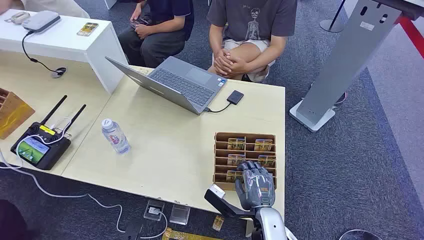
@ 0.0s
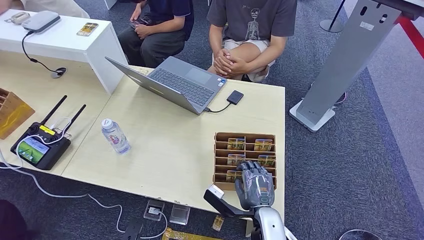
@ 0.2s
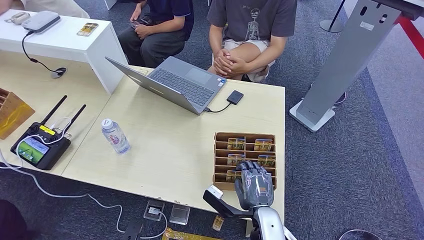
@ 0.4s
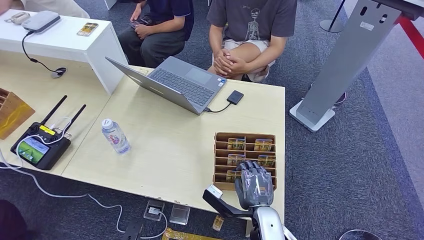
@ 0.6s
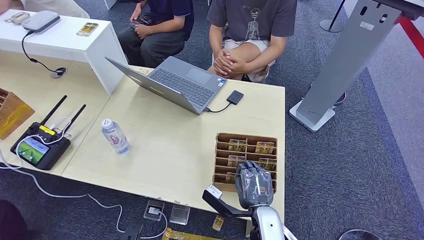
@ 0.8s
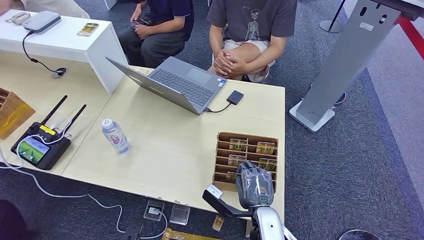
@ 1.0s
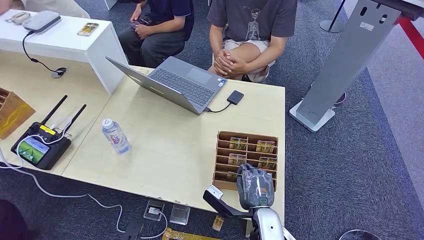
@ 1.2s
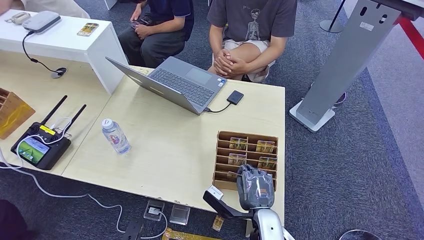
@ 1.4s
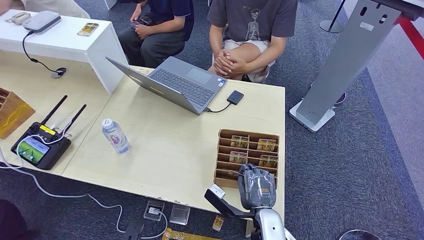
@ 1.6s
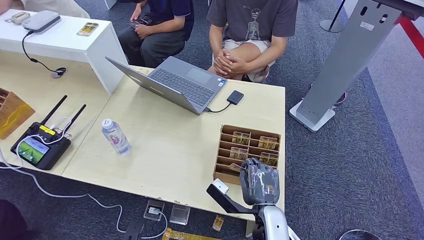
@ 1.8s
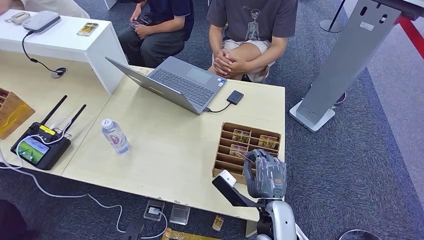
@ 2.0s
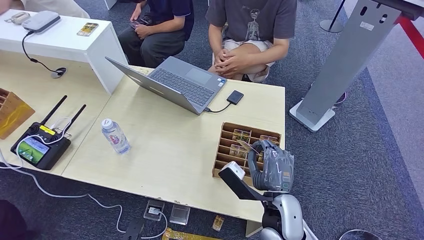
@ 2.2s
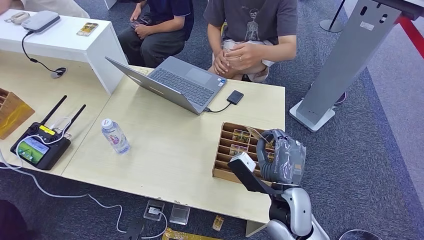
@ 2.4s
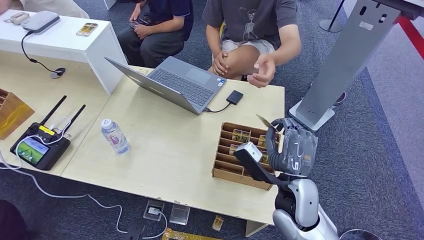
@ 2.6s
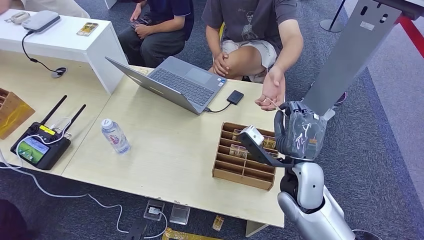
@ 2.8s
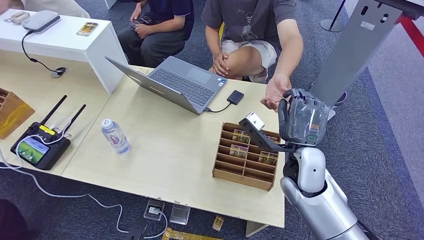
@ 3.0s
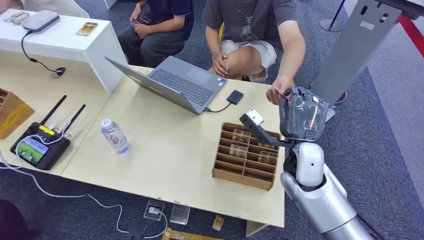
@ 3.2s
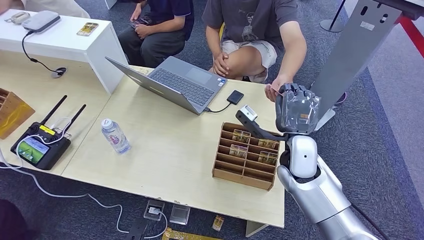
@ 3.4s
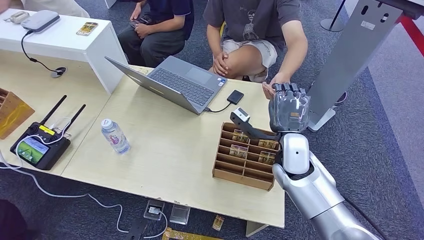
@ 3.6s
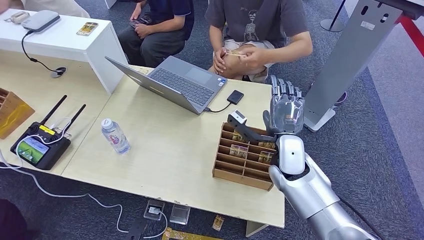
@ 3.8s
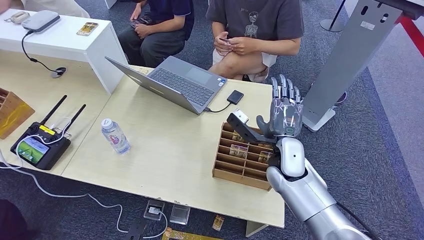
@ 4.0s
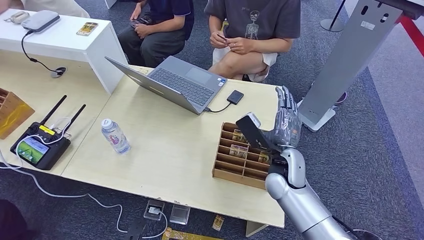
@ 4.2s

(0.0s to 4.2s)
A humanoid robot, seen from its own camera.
Step, 0.0s - 2.2s: Pick up the room card from the card holder.
Step, 2.4s - 4.2s: Hand the room card to the target.
1.4s - 2.8s: The right hand moves upward and forward, roughly 15 cm.
2.8s - 4.2s: The right hand ends up about 5 cm from where it was.

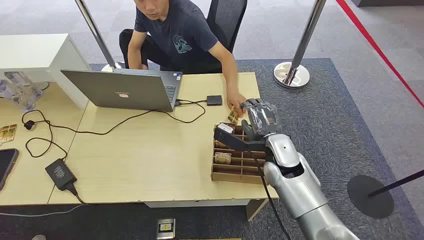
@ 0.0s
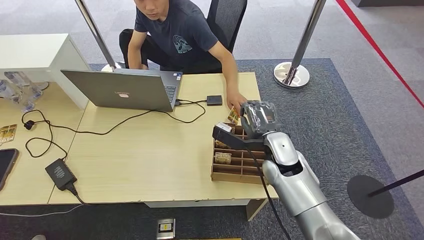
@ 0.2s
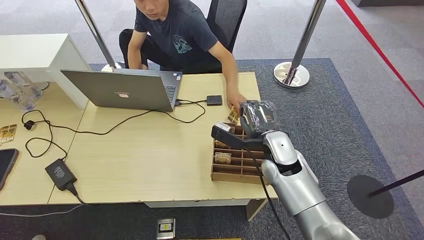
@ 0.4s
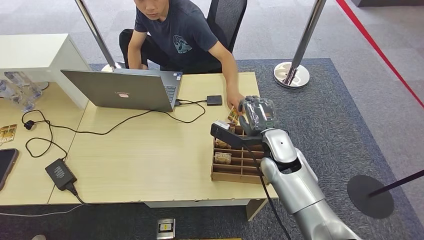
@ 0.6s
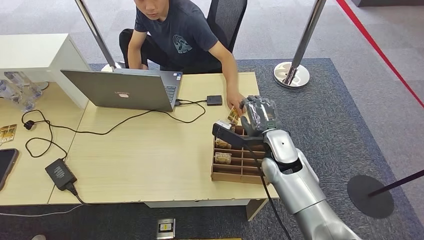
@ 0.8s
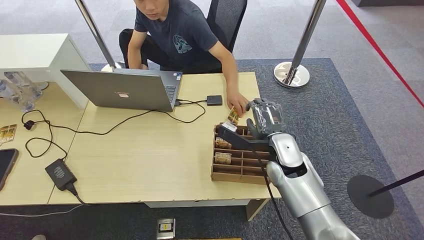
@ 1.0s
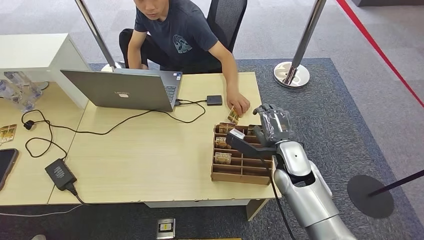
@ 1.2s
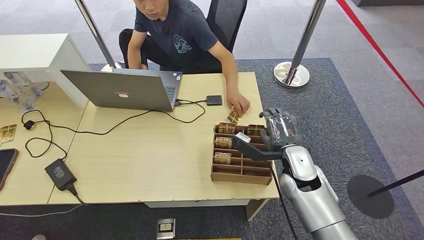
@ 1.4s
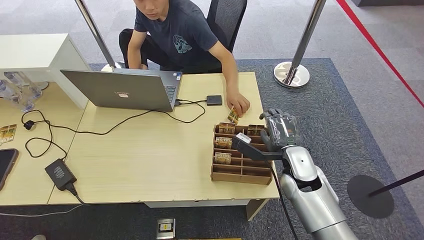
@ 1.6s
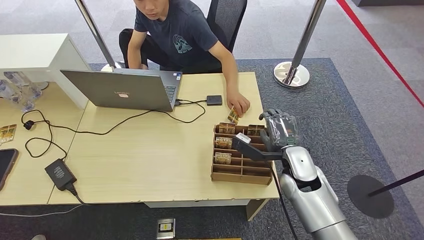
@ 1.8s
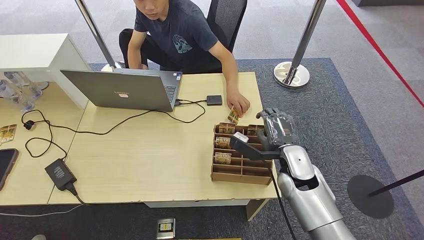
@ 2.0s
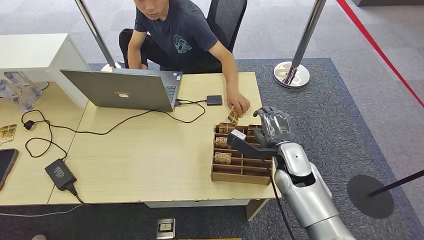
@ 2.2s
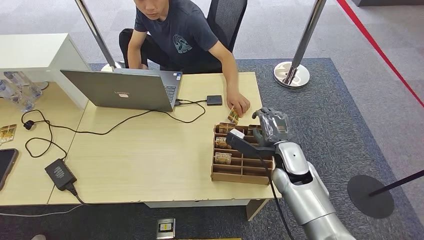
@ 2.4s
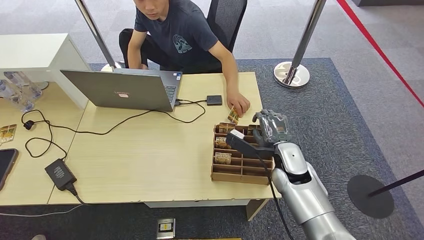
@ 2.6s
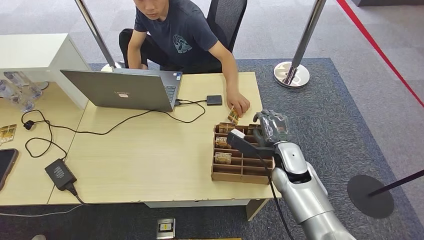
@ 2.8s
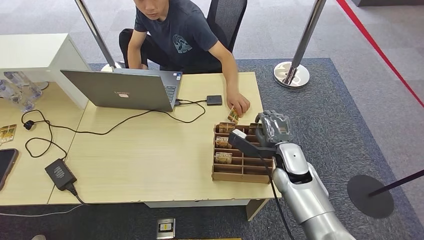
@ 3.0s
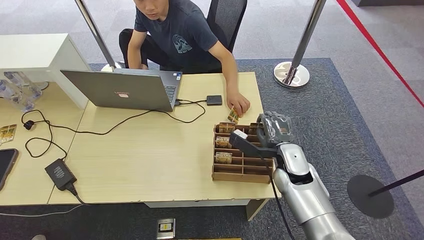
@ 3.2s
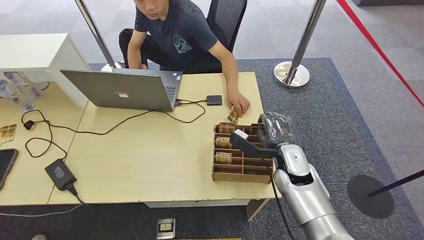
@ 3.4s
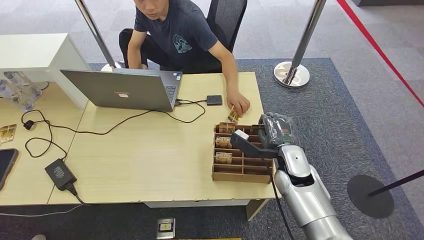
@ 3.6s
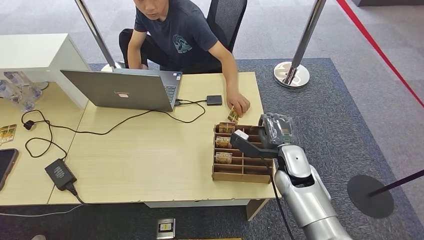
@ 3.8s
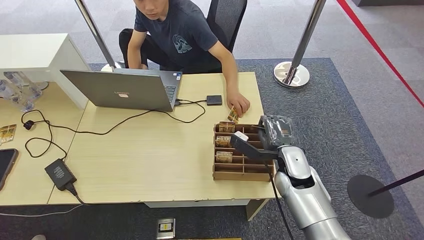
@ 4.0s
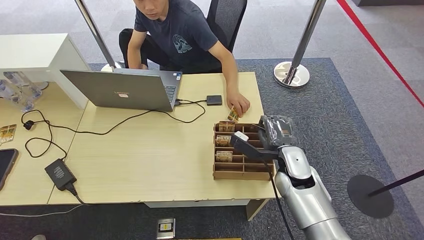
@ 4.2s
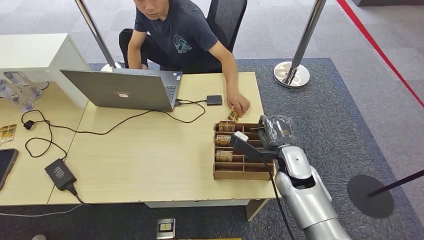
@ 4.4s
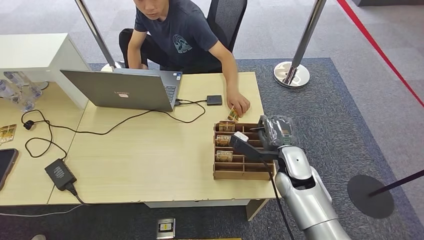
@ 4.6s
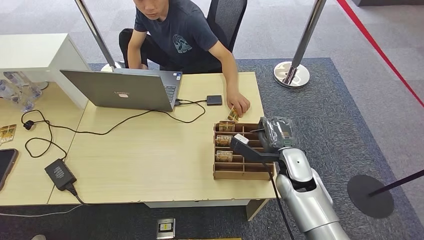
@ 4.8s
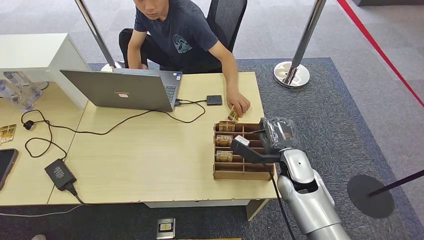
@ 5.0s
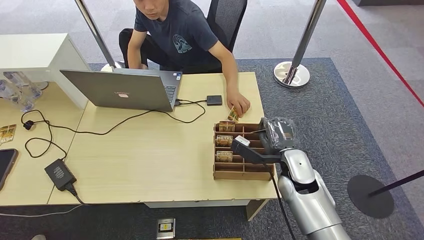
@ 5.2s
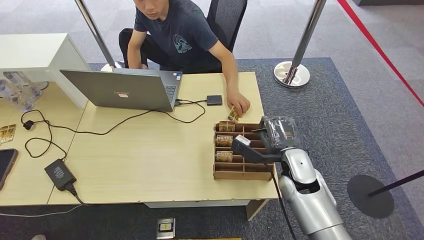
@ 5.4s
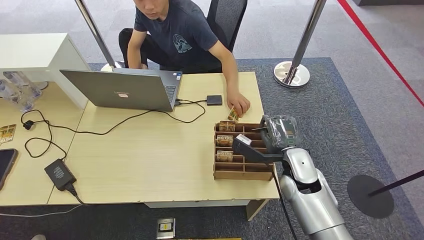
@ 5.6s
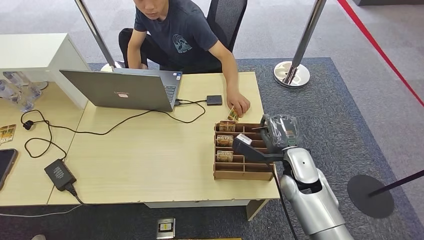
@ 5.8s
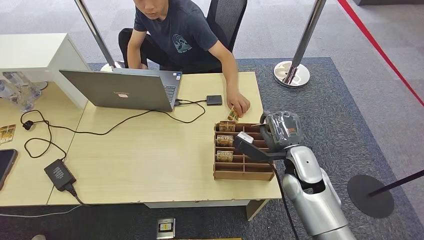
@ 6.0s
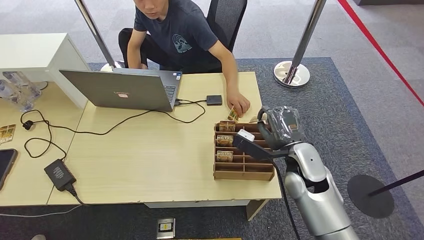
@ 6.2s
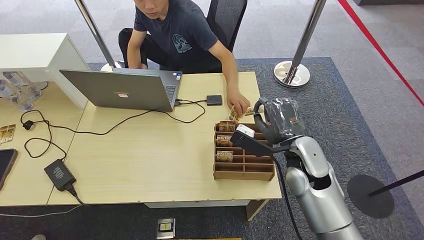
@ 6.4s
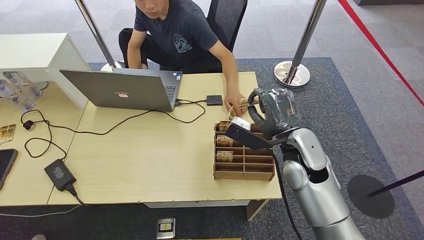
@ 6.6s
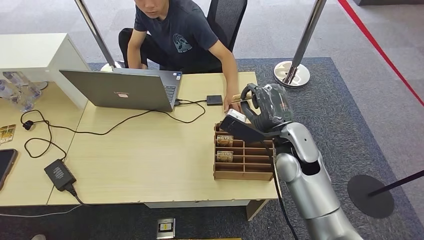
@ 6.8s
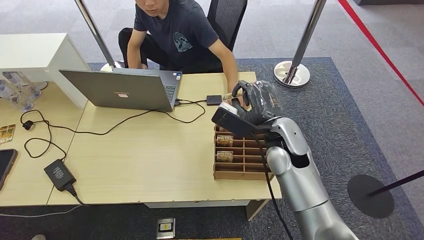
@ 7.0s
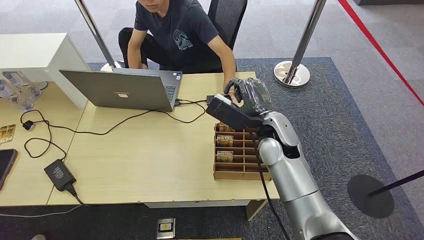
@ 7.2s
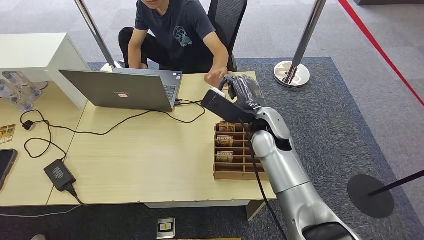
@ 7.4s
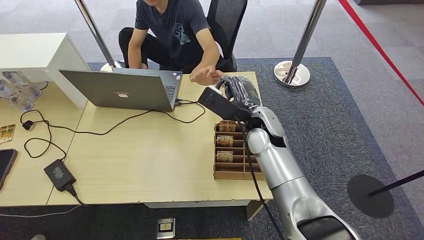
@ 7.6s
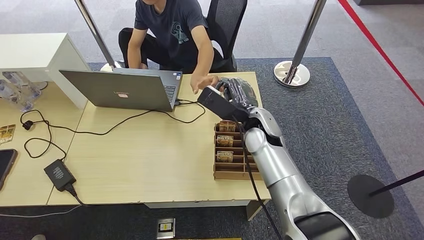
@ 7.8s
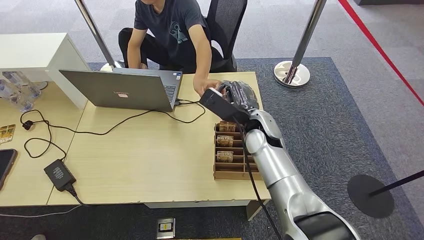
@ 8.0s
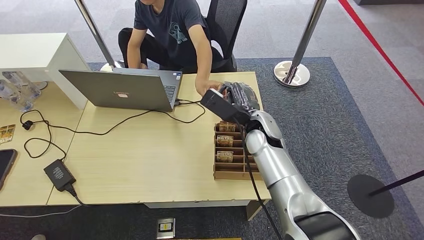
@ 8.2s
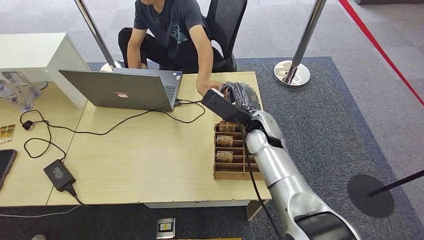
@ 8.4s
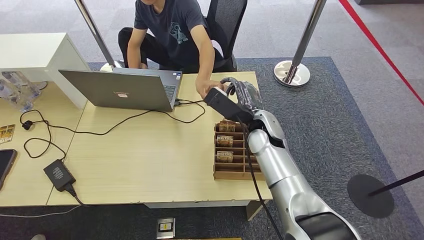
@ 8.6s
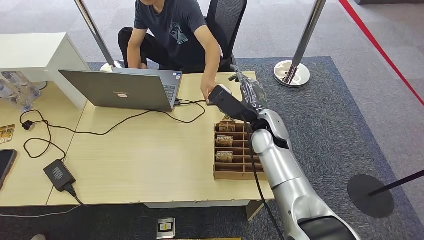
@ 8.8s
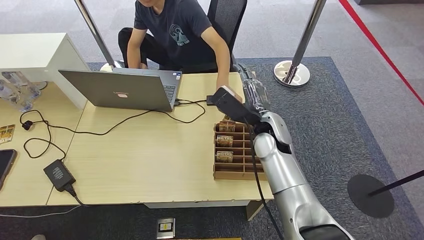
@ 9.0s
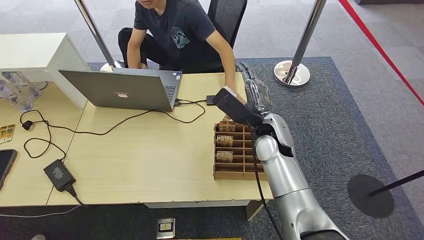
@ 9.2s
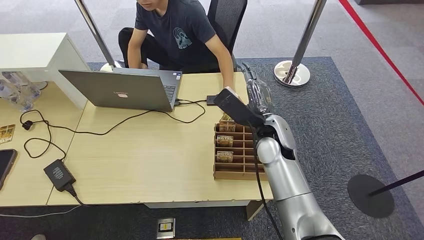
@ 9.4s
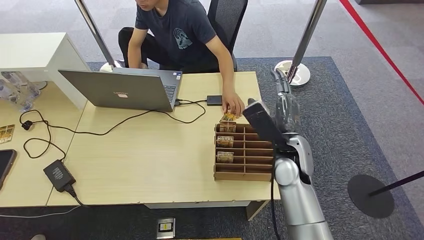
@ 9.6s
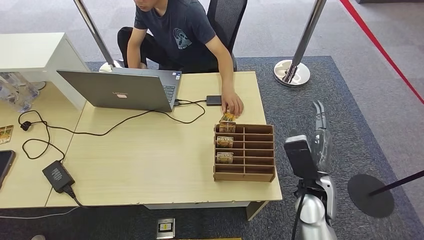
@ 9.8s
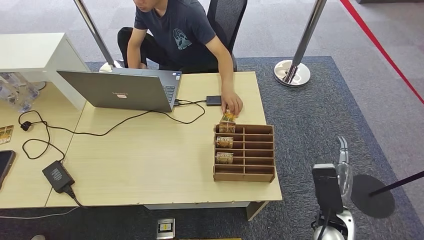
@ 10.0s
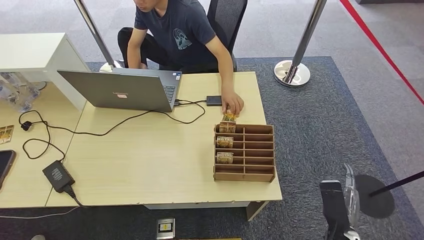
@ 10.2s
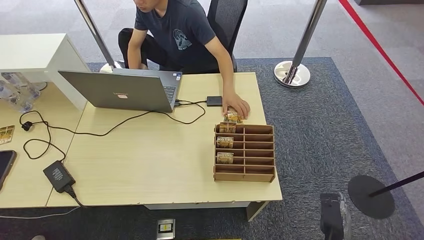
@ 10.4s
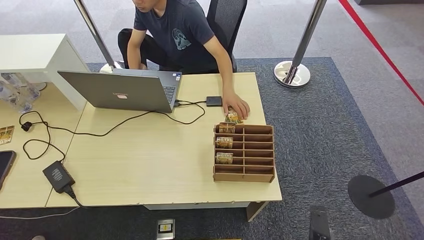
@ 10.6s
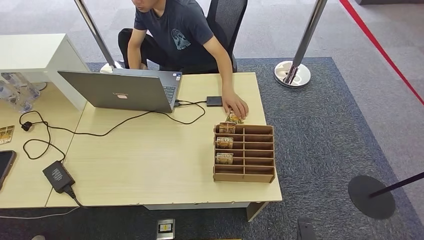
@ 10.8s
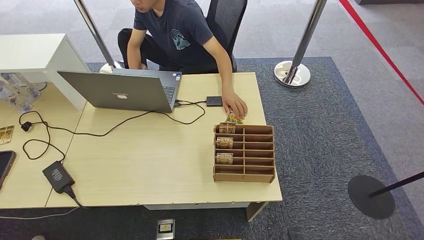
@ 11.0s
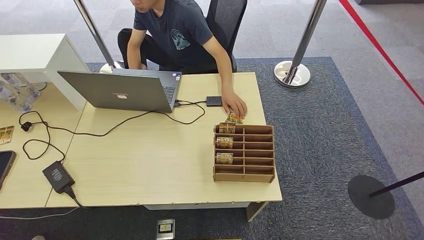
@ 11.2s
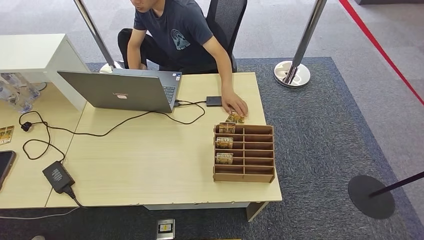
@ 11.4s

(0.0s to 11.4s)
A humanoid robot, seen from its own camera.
Step, 0.0s - 6.2s: Pick up the room card from the card holder.
Step, 6.6s - 11.4s: Hand the room card to the target.
1.4s - 2.8s: The hands make only small movements.
2.8s - 4.2s: Neither hand changes place.
4.2s - 5.6s: There are only small adjustments of the hands.
5.6s - 7.2s: The right hand is displaced upward and to the left by approximately 10 cm.
7.2s - 8.6s: The hands stay close to where they were, moving slightly.
8.6s - 10.0s: The right hand goes approximately 25 cm backward, to the right and downward.
10.0s - 11.4s: The right hand heads downward and backward, covering some 25 cm.
